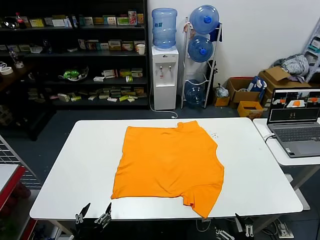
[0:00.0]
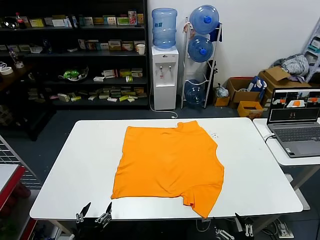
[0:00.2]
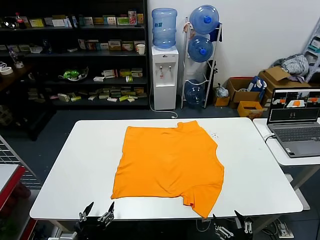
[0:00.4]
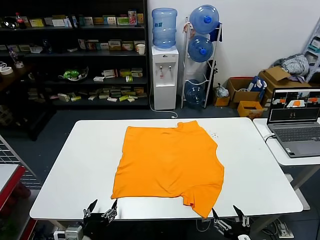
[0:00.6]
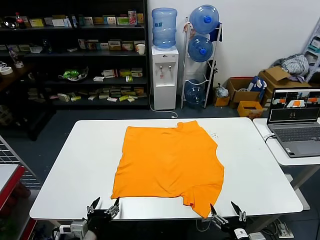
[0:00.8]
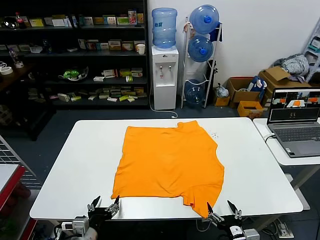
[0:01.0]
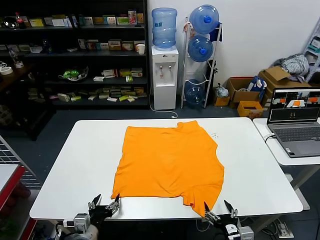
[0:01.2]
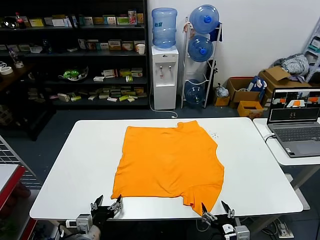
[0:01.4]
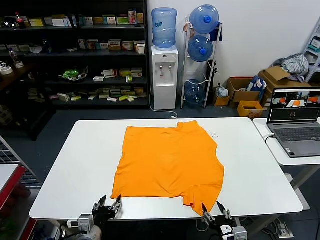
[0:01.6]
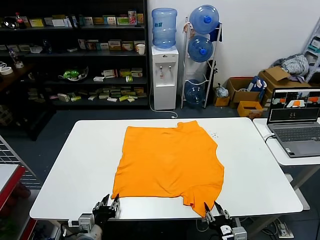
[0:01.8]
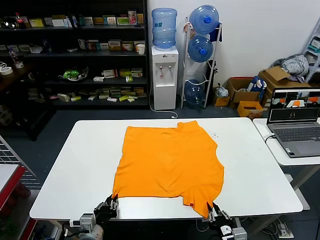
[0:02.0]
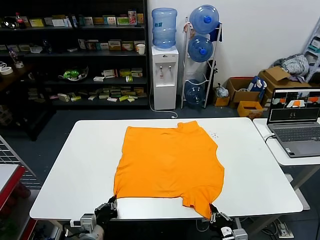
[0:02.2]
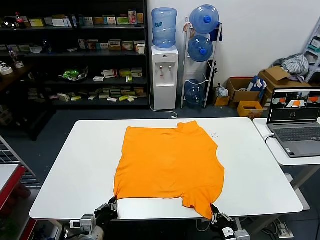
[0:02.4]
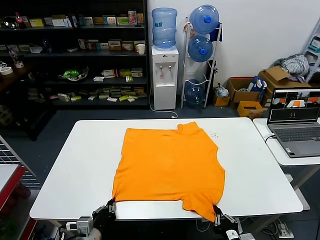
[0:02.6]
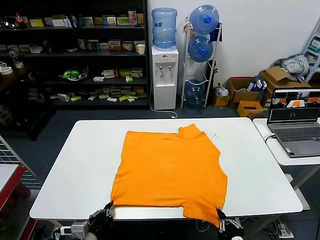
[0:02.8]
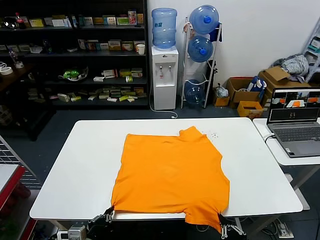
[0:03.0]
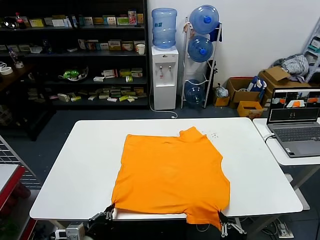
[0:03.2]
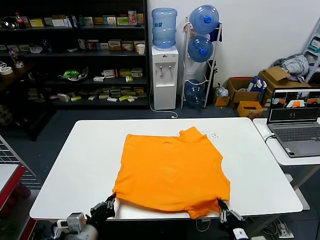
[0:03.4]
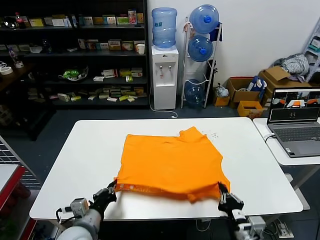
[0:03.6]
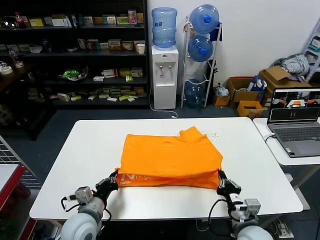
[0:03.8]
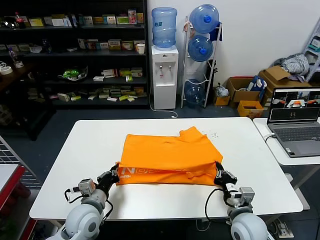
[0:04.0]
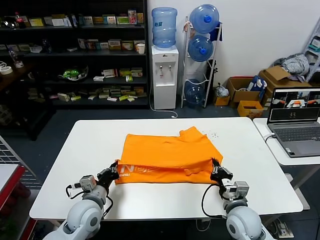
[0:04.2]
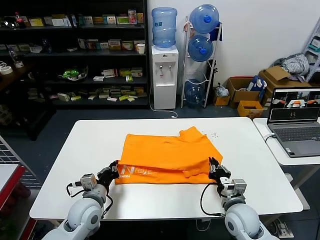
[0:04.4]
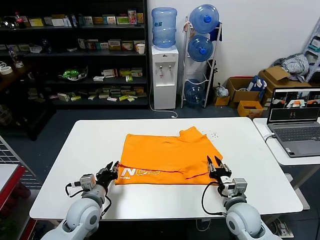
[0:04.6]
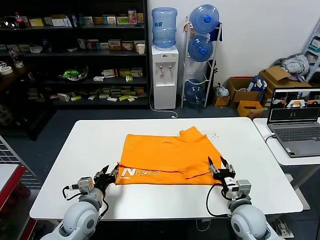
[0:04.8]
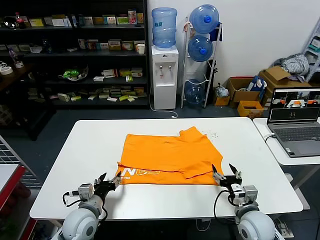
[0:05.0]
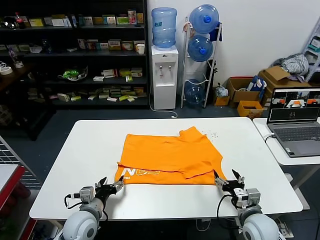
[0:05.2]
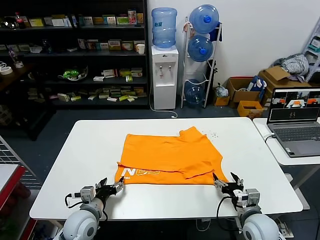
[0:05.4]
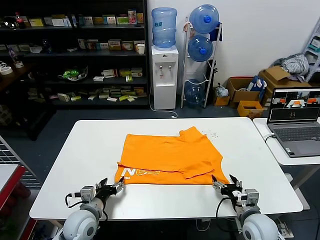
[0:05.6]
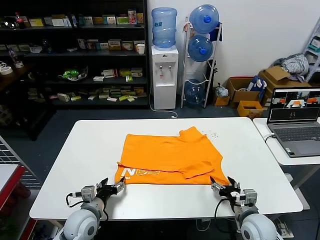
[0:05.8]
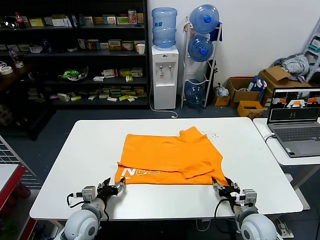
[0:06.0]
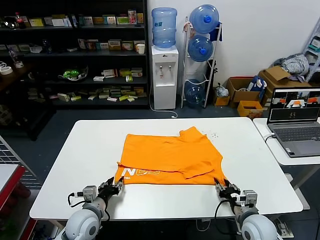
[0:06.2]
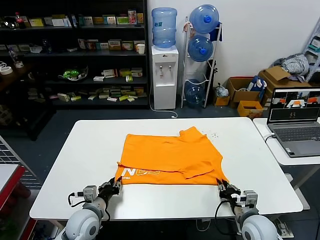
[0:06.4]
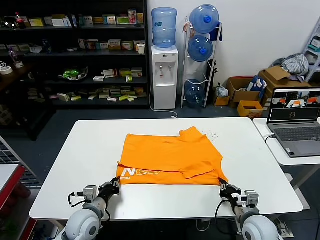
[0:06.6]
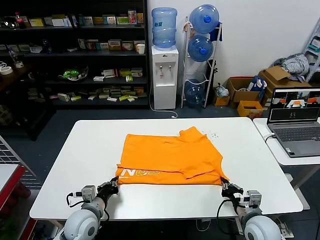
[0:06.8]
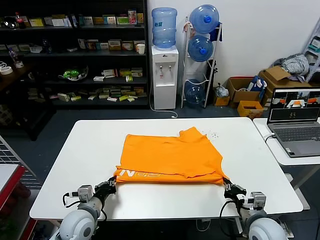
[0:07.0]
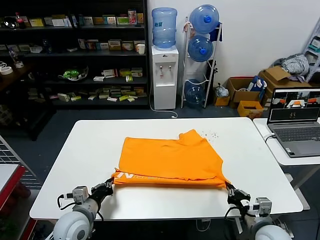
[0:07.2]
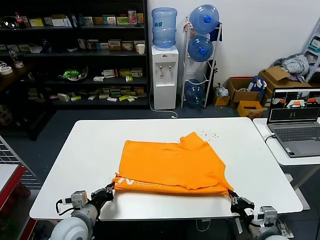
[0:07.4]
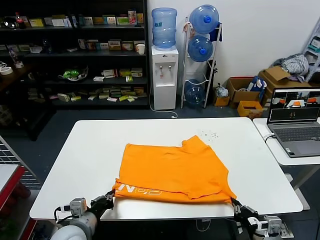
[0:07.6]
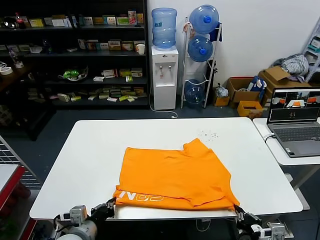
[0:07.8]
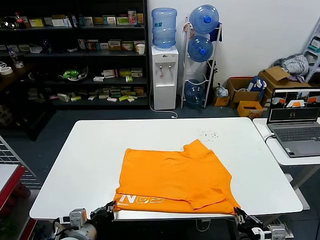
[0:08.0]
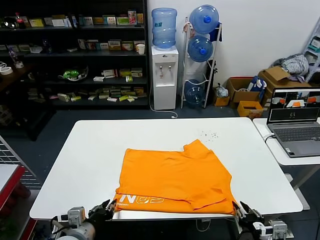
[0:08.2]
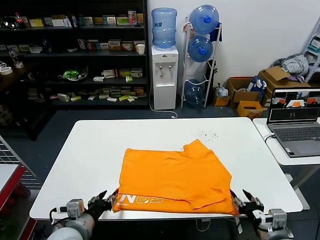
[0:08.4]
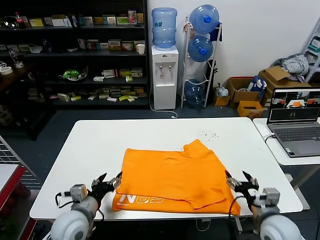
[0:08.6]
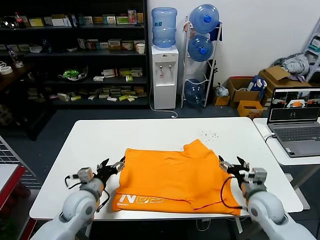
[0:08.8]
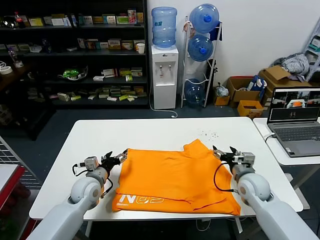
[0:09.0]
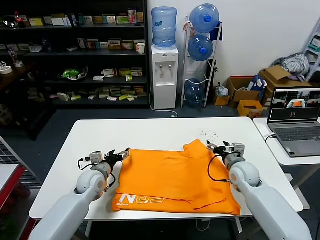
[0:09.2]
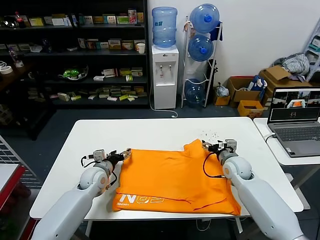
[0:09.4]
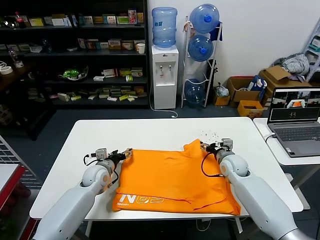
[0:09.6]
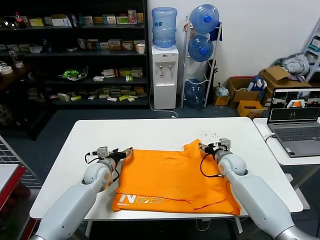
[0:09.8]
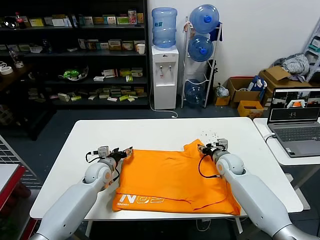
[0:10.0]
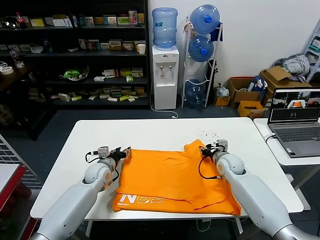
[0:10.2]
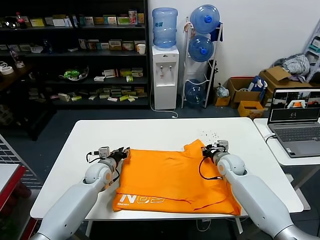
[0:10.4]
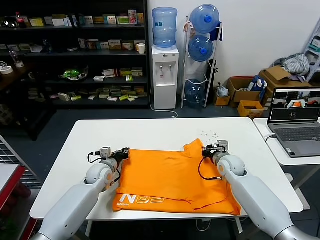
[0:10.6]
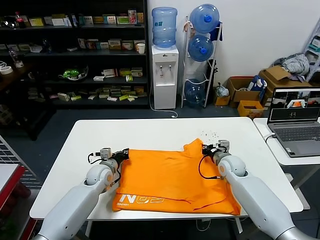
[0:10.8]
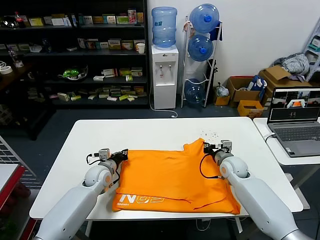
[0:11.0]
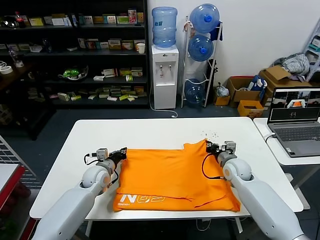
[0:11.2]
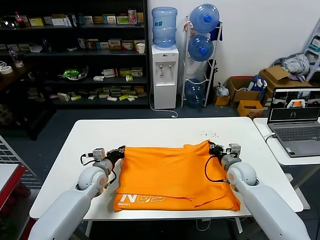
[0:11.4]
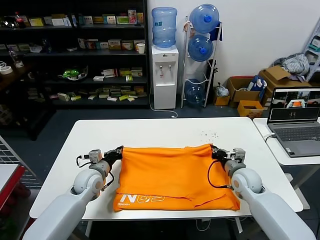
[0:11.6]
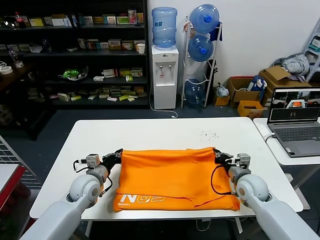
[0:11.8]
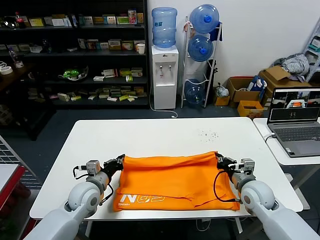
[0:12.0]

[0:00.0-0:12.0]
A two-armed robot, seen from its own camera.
Task of the whole recording: fold and organize the clothes.
Step, 0:00.0 to 0:02.0: use both grippers simultaneously to clamp the lower edge of the clothing fabric.
Step, 0:02.2 to 0:04.4: use both grippers to drag the lower edge of the fabric forward and fold it over the upper edge.
Step, 0:04.8 to 0:08.0: Drag the clothes downward with both gripper.
Step, 0:08.2 to 0:10.6: use both grippers simultaneously to clamp the upper edge of the clothing fabric.
0:01.6 to 0:03.0: The right gripper shifts roughly 5 cm backward, and closes its fingers. Meanwhile the left gripper moves approximately 5 cm, and closes.
0:03.0 to 0:04.4: Both grippers move forward, roughly 20 cm.
0:04.4 to 0:06.0: The right gripper is displaced to the right by about 5 cm, and opens its fingers, while the left gripper opens.
0:06.0 to 0:07.6: The left gripper goes approximately 10 cm backward and upward, and closes its fingers, while the right gripper heads backward, covering roughly 10 cm, and closes.
0:07.6 to 0:09.0: The two grippers go about 20 cm forward. The left gripper opens up. Meanwhile the right gripper opens its fingers.
0:09.0 to 0:10.4: Both grippers travel together forward, some 10 cm. The right gripper closes up; the left gripper closes.
0:10.4 to 0:12.0: The right gripper shifts some 15 cm backward; the left gripper is displaced backward and upward by roughly 10 cm, and closes its fingers.

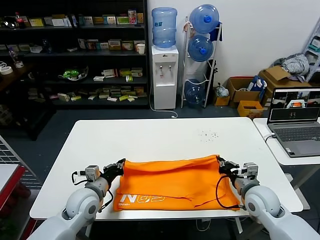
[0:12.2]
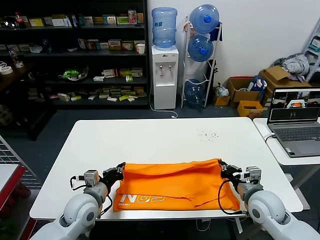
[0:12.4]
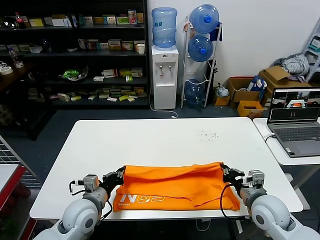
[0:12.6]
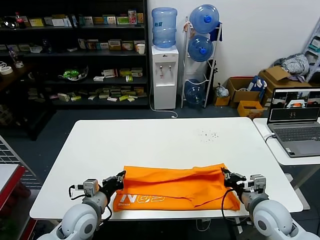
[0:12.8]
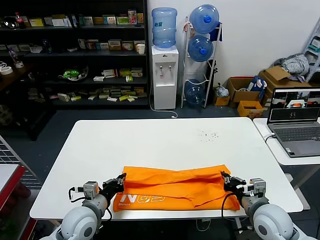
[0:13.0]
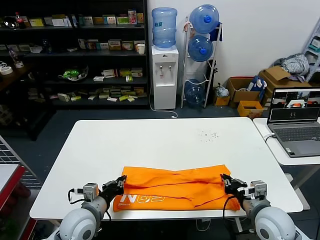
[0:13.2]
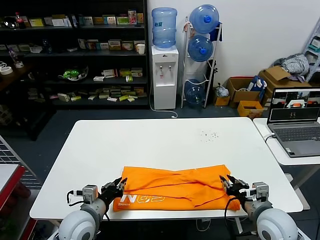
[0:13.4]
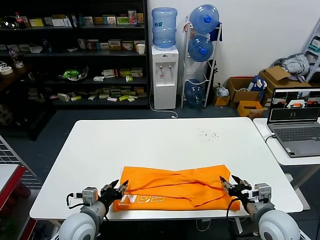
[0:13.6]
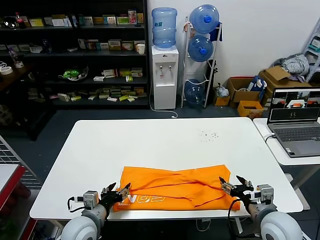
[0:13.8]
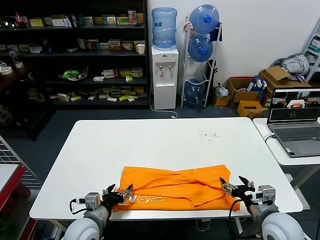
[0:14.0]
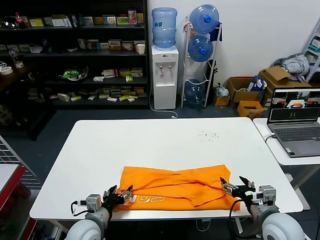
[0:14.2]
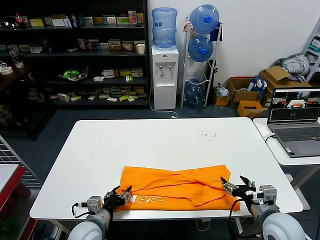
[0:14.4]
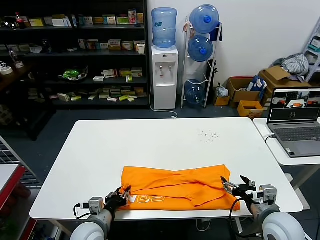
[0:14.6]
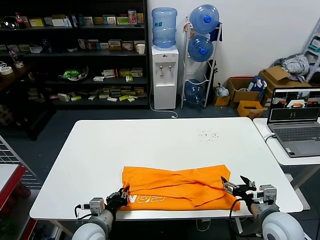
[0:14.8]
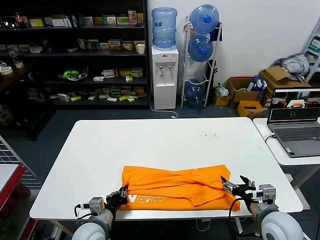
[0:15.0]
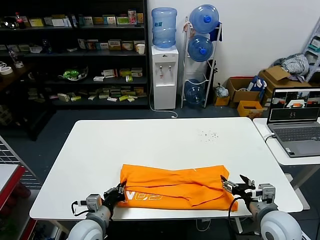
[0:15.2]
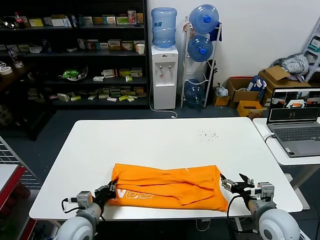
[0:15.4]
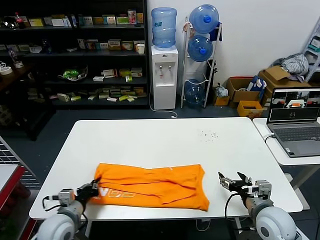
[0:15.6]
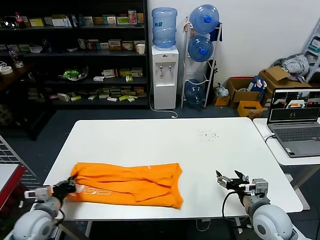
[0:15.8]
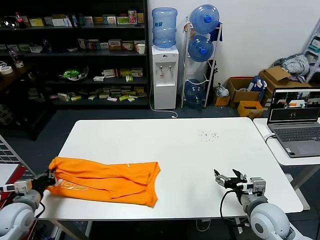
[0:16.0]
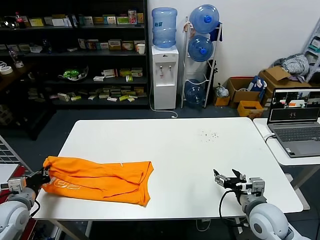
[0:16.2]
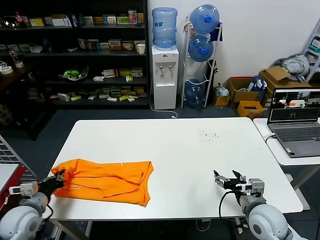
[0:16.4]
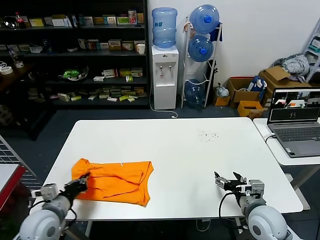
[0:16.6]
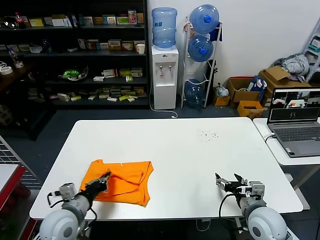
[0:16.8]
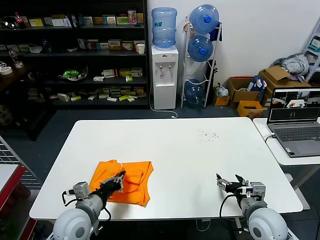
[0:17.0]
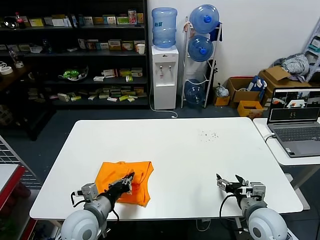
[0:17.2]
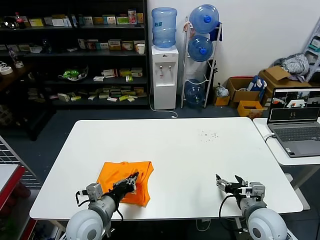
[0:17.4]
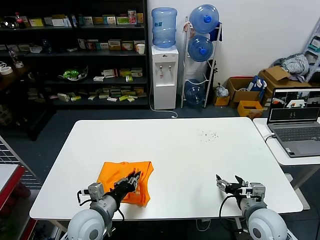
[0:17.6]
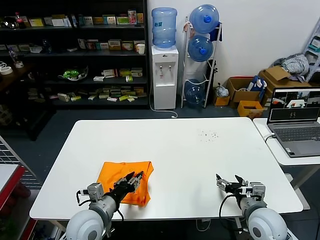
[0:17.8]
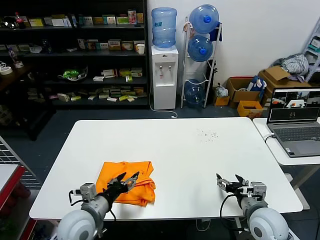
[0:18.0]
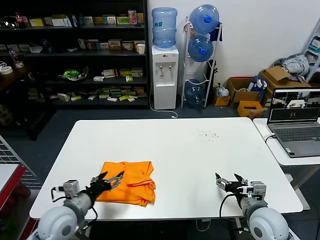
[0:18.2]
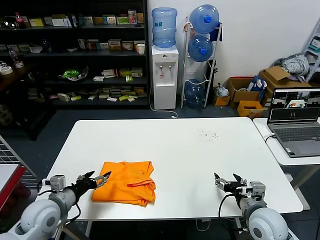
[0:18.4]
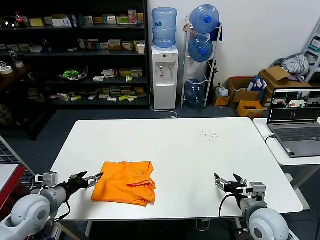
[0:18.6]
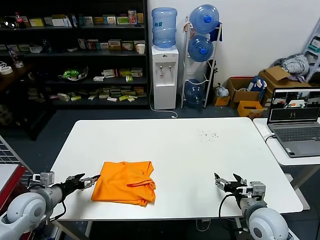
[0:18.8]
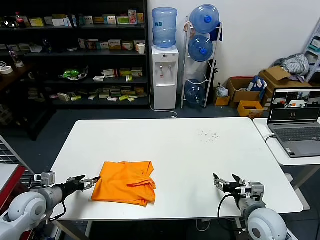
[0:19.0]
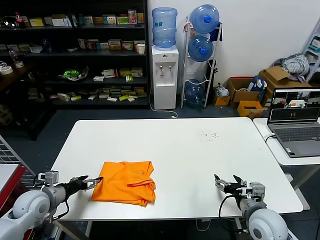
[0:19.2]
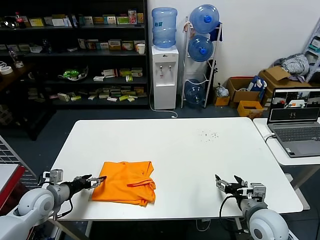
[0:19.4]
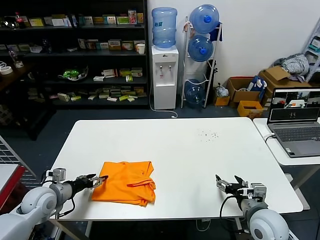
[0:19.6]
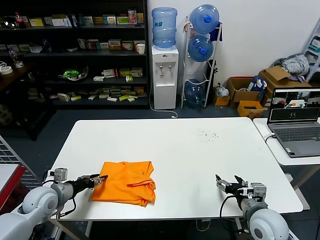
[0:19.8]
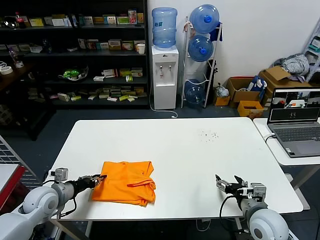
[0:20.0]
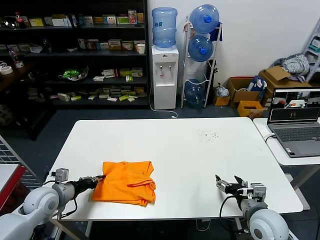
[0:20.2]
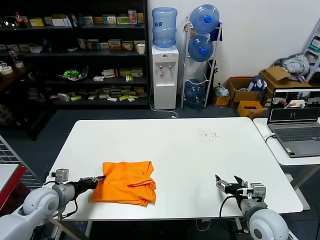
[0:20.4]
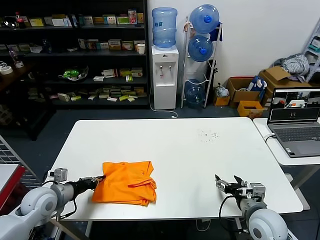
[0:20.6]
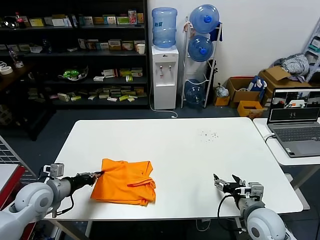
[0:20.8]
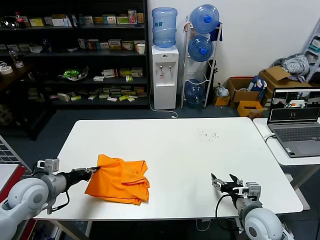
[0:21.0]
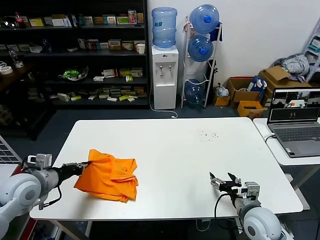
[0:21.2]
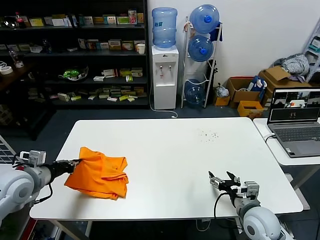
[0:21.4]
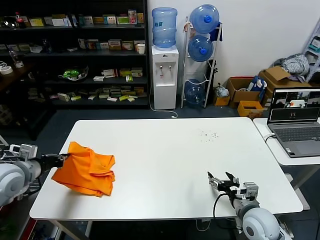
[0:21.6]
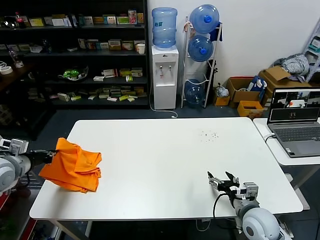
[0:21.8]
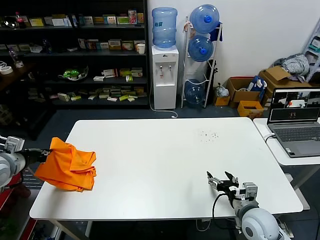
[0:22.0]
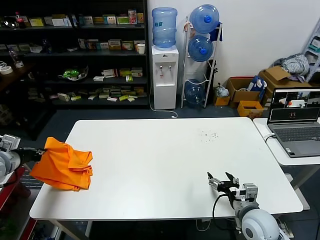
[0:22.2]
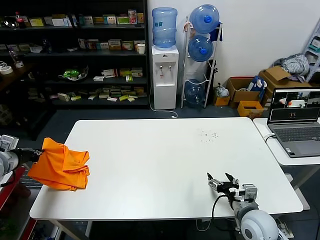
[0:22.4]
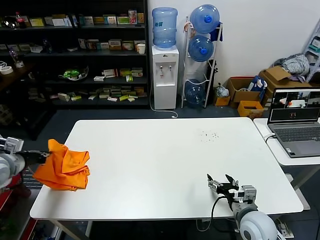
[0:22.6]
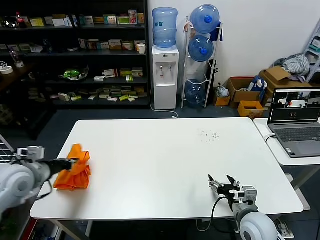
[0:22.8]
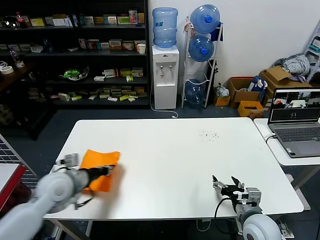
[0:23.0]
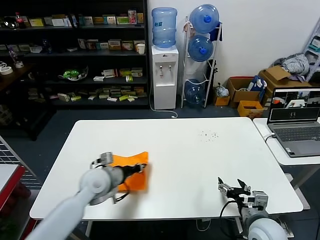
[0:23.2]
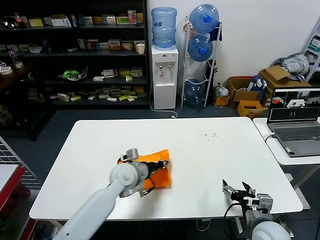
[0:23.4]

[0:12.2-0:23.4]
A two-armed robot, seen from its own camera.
Task of the whole recording: fold and organize the clothes.
Step, 0:13.4 to 0:14.8: use the left gripper to clamp the left edge of the fabric.
Step, 0:15.0 to 0:17.8: use the left gripper to drag the left edge of the fabric to the left and folds it over the right edge.
0:12.2 to 0:13.8: The two grippers go approximately 10 cm backward. The right gripper opens; the left gripper opens its fingers.
0:13.8 to 0:15.4: The left gripper closes up.
0:15.4 to 0:17.0: The left gripper goes approximately 5 cm upward, and reaches roughly 20 cm to the left, then returns.
0:17.0 to 0:18.6: The left gripper goes about 10 cm to the left, and opens up.
0:18.6 to 0:20.2: The left gripper moves approximately 5 cm, and closes up.
0:20.2 to 0:21.8: The left gripper moves upward and to the left, about 15 cm.
0:21.8 to 0:23.4: The left gripper moves to the right and downward, approximately 35 cm.
